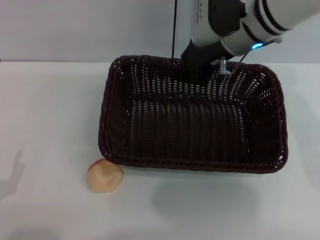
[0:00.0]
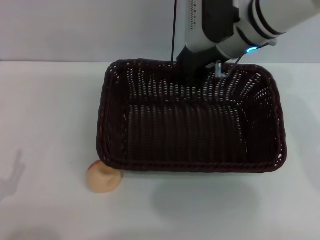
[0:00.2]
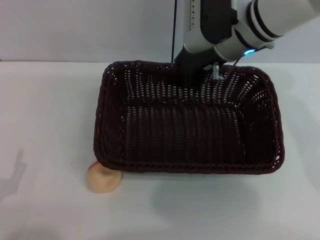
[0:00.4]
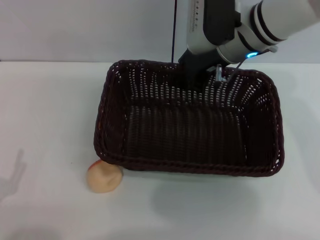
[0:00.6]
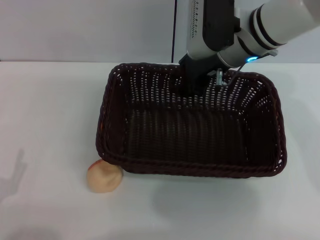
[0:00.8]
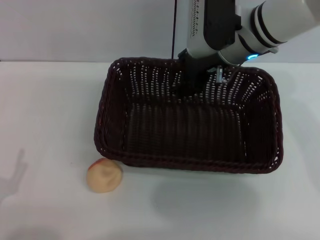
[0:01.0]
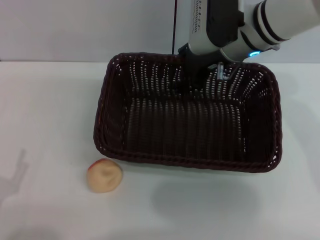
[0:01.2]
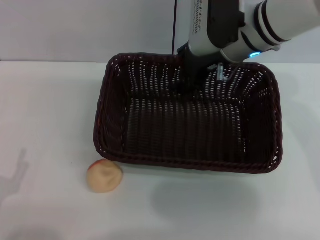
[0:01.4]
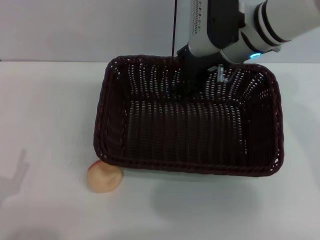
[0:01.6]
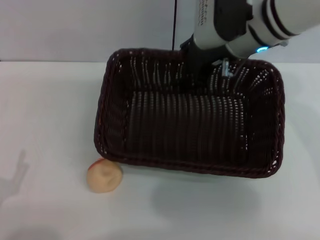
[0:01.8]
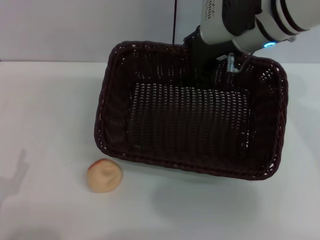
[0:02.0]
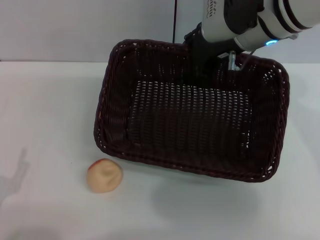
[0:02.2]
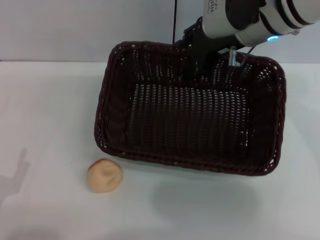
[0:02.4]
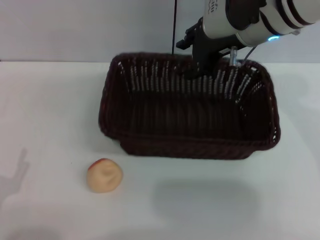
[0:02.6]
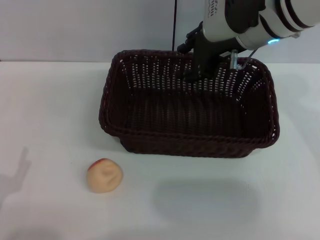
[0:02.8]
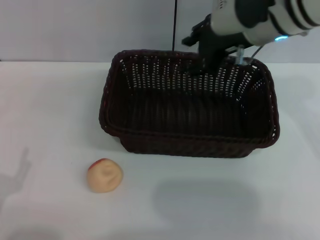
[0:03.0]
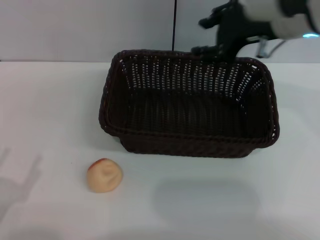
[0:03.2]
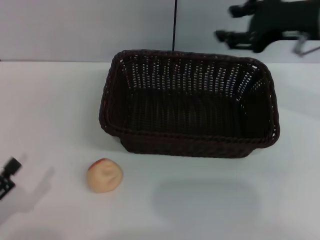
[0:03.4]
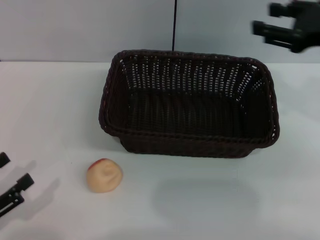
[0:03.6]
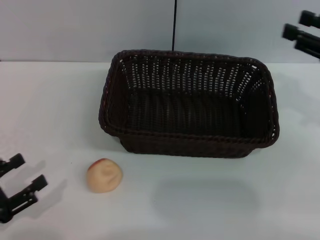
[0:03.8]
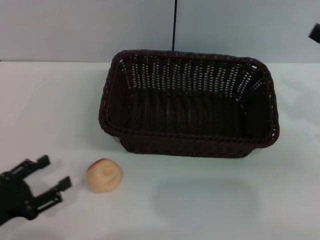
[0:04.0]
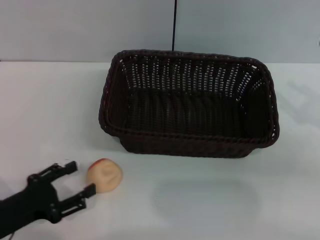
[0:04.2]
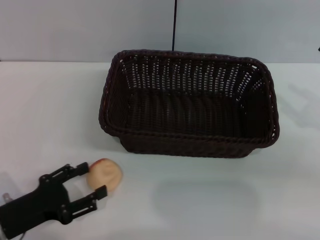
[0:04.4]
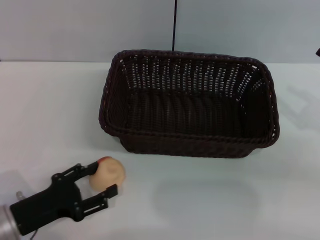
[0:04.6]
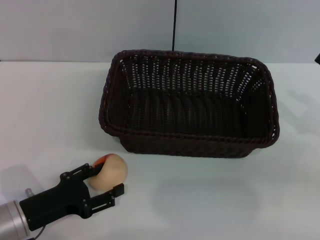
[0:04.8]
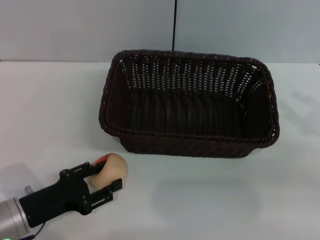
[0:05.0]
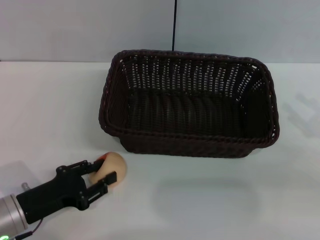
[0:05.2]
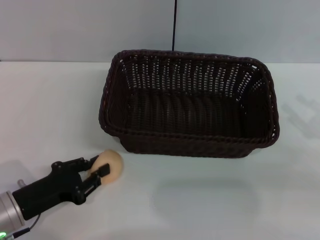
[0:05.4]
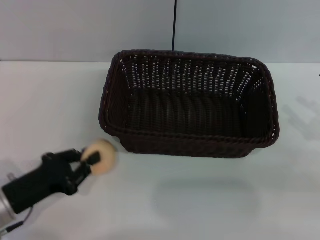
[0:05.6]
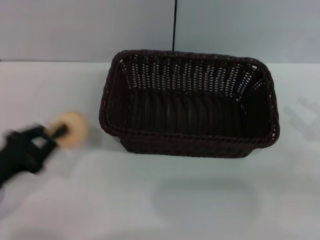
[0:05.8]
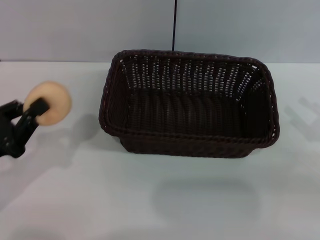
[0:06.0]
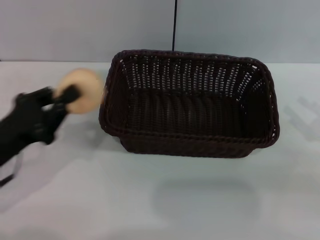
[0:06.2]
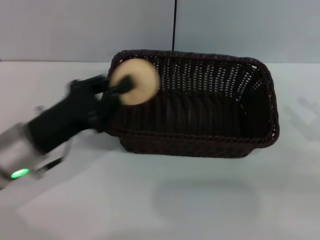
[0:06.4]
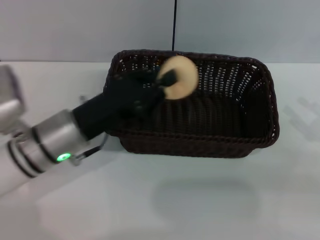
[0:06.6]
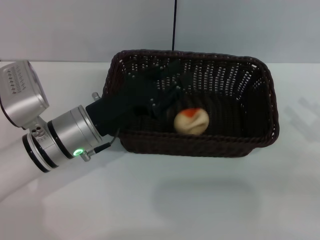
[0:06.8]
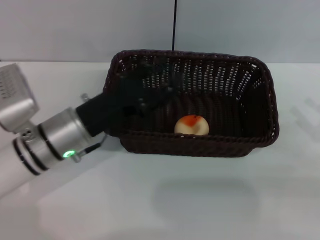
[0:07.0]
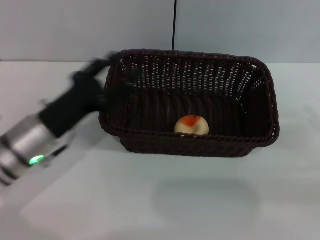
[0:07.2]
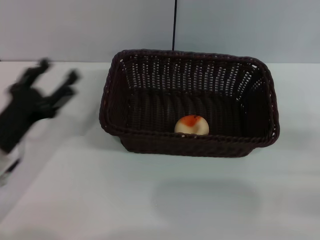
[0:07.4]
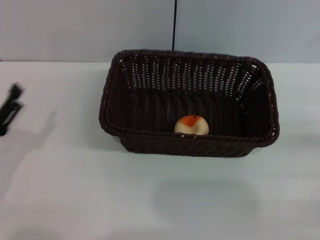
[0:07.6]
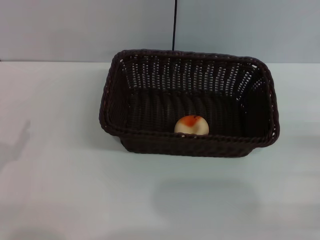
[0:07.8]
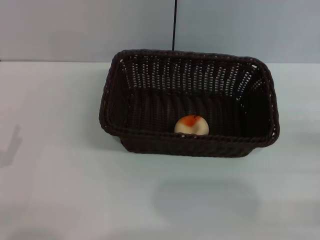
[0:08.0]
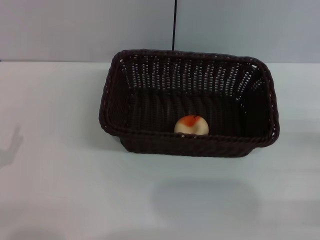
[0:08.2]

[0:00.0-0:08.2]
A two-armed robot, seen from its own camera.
Step, 0:00.0 to 0:03.2: Move the basket to the center of view with the right gripper.
Step, 0:03.4 to 0:05.8: Pick up the egg yolk pastry with the left gripper.
Step, 0:06.0 to 0:07.0: Place the egg yolk pastry into the basket with the left gripper.
0:00.0 to 0:01.6: The right gripper opens up.
0:01.6 to 0:03.2: The right gripper shifts roughly 10 cm to the right and upward.
0:03.2 to 0:05.0: The left gripper goes some 10 cm forward and to the right. Meanwhile the right gripper moves to the right, backward and downward, roughly 25 cm.
0:05.0 to 0:06.6: The left gripper is displaced to the right, forward and upward by roughly 15 cm, and closes its fingers.
0:06.6 to 0:08.2: The left gripper heads to the left and backward, covering approximately 20 cm, and opens up. Meanwhile the right gripper ends up about 5 cm from where it was.
